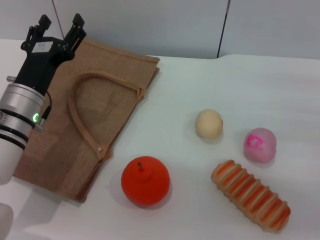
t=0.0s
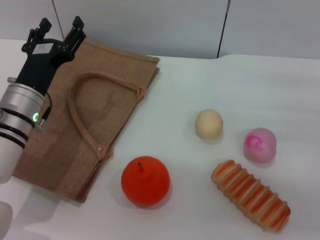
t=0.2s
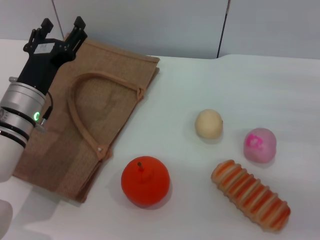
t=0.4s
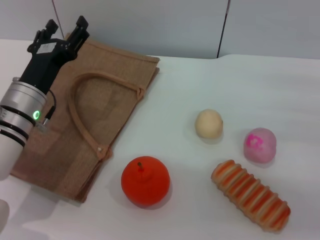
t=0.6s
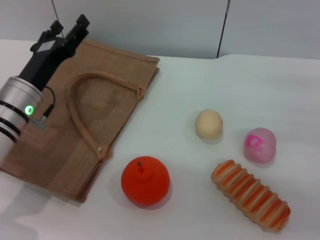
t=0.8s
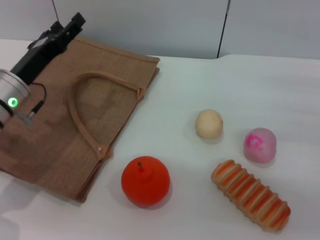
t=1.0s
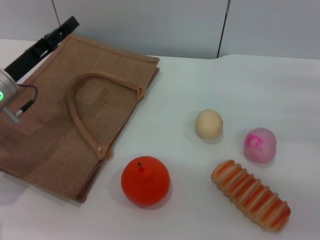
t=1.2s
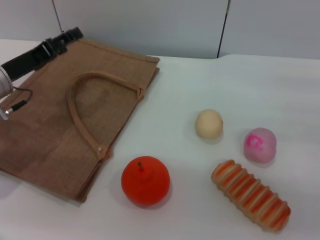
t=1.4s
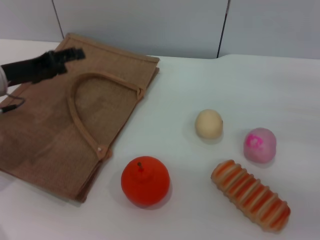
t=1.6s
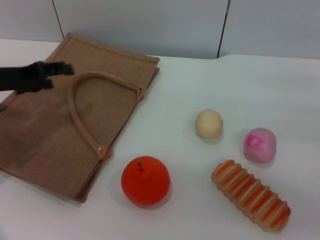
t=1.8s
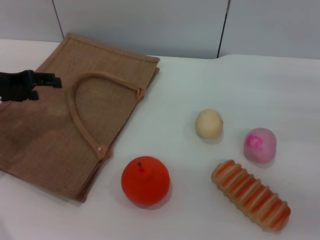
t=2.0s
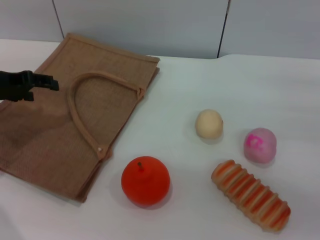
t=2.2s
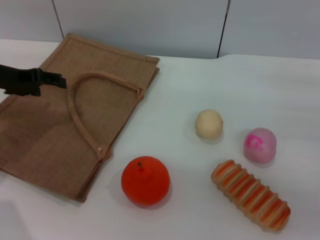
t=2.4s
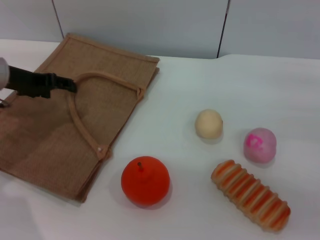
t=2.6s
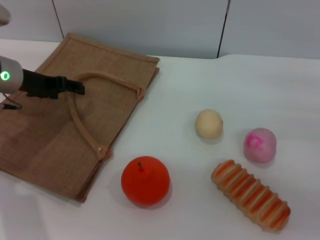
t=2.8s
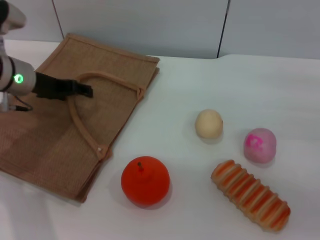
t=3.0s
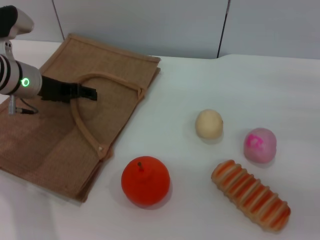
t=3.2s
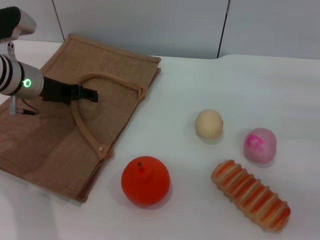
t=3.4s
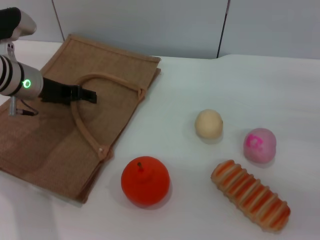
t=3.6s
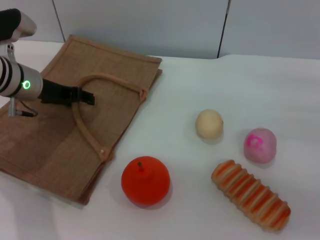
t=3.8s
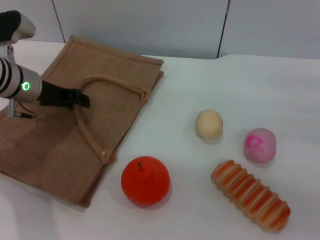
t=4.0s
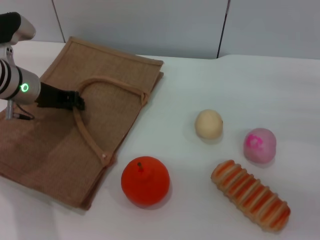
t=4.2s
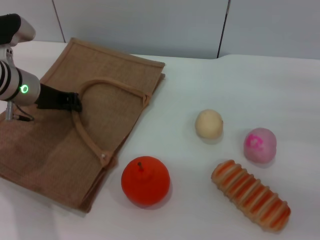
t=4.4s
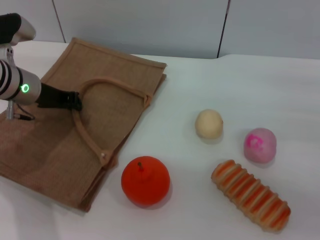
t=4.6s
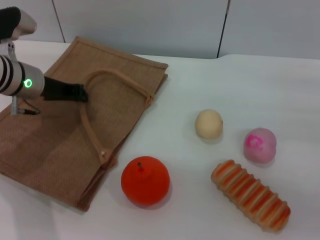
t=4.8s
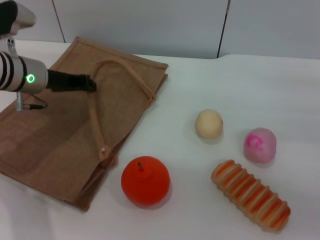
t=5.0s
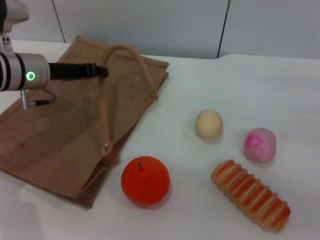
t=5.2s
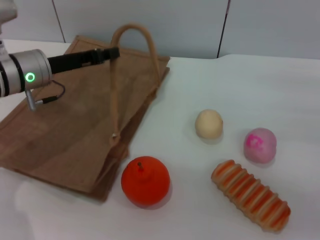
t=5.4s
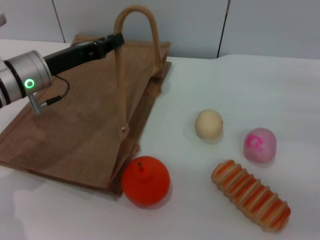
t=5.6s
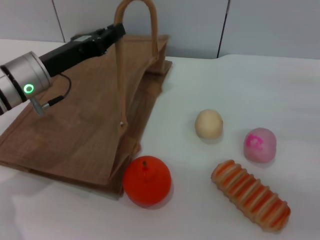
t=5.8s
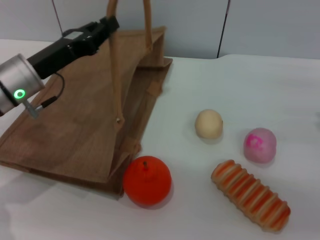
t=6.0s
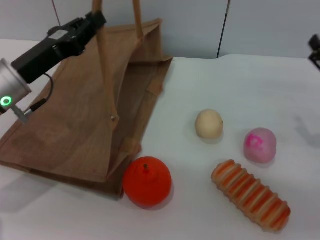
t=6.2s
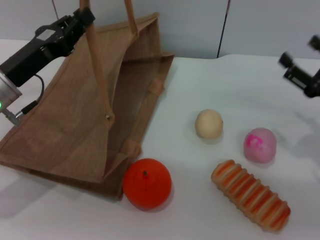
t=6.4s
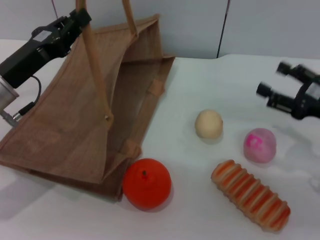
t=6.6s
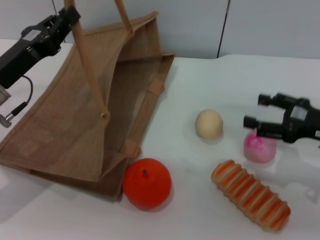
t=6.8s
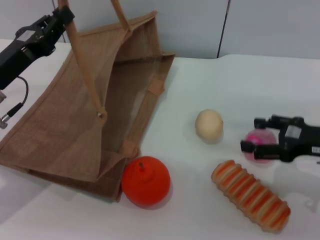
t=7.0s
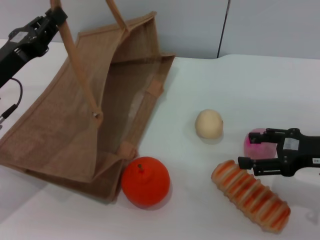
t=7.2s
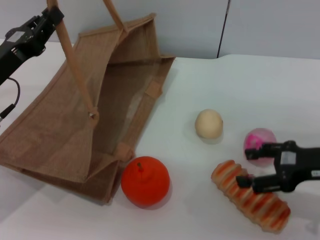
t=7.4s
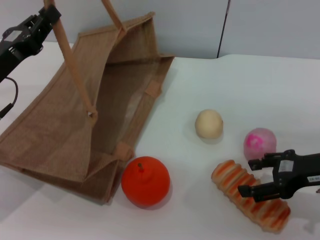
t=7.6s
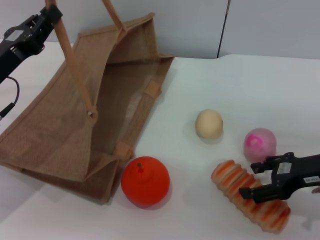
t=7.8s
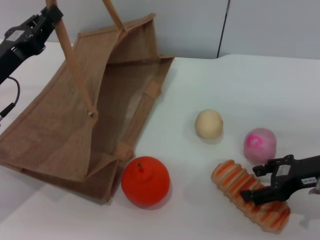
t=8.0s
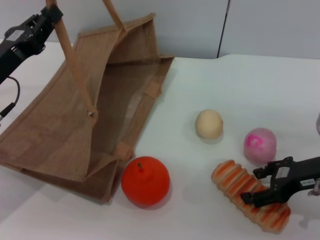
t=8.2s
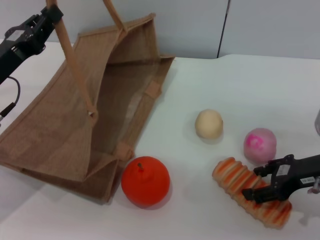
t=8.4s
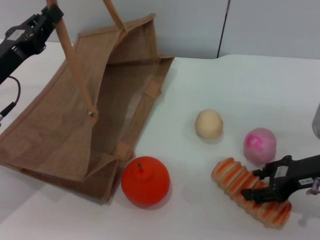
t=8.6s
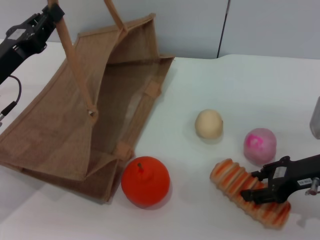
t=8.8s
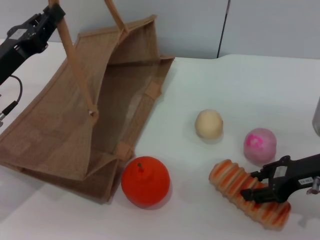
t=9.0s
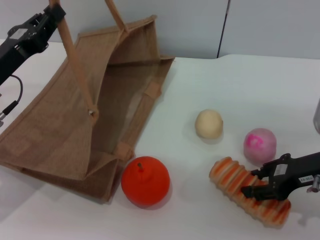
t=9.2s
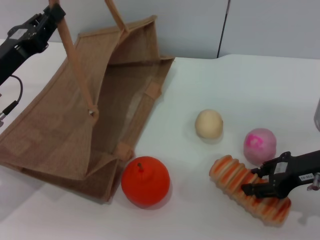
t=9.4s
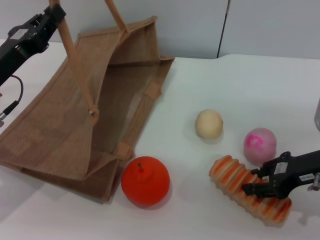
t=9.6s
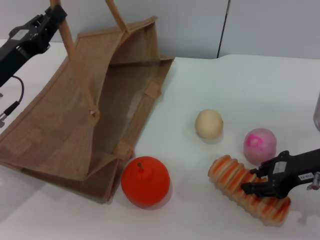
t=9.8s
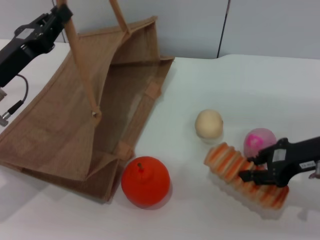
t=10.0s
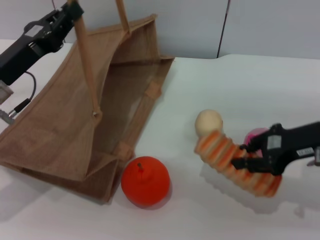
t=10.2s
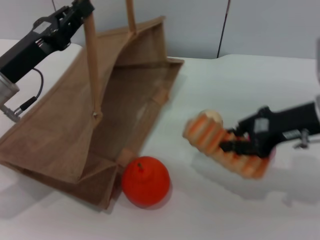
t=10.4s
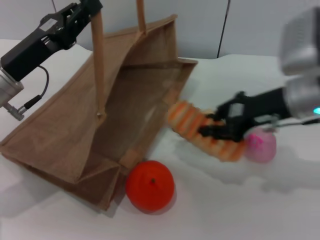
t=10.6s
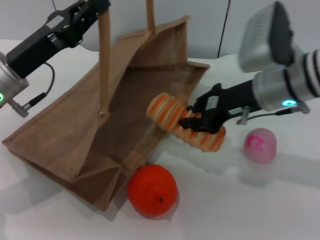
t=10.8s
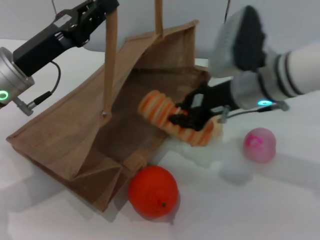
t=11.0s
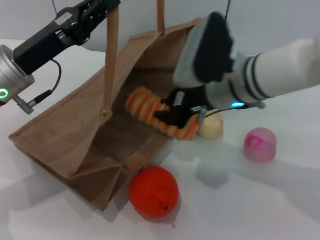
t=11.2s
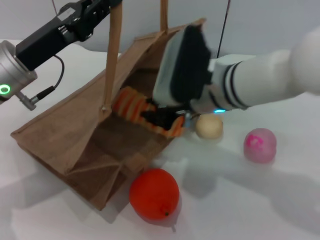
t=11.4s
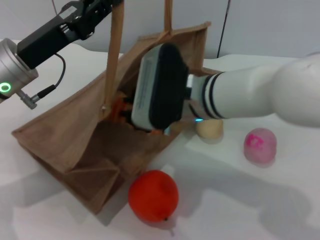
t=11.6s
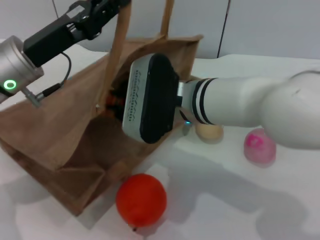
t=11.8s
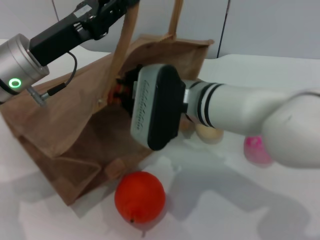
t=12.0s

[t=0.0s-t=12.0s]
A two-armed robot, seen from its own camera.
Task of the whole recording: pick up the bread and egg yolk pastry from the table and place it in the brown handbag.
Step, t=0.0s to t=6.2s: Lift the woven bag with the left gripper to open it.
Step, t=6.4s to t=10.0s: Pick up the bread with the right gripper.
t=0.0s to t=1.6s: The left gripper is displaced to the left by some 10 cm.
t=1.6s to t=3.0s: The left gripper changes place by about 5 cm.
t=3.0s to t=4.4s: The left gripper closes.
t=4.4s to t=6.0s: The left gripper is displaced backward by about 5 cm.
t=6.0s to t=7.6s: The left gripper changes place by approximately 5 cm. Meanwhile the right gripper heads to the left, covering about 5 cm.
t=7.6s to t=9.0s: The right gripper closes up.
t=9.0s to t=10.4s: The right gripper is displaced upward by roughly 5 cm, and closes.
t=10.4s to t=12.0s: The right gripper travels to the left by roughly 20 cm; the left gripper shifts by some 5 cm.

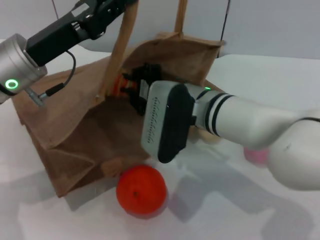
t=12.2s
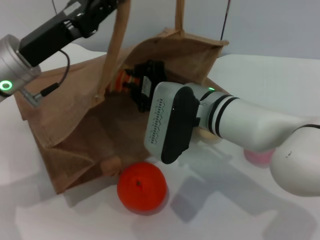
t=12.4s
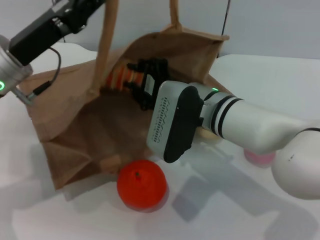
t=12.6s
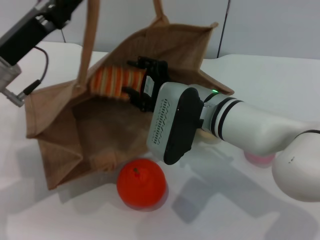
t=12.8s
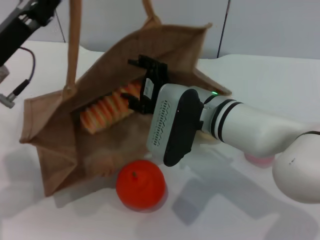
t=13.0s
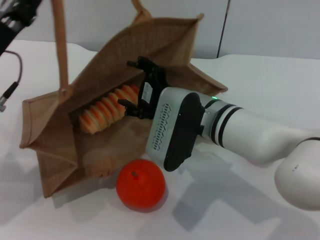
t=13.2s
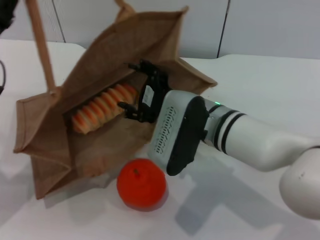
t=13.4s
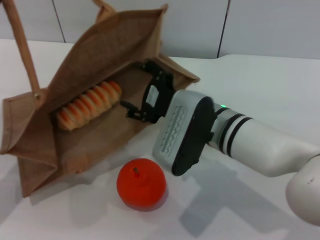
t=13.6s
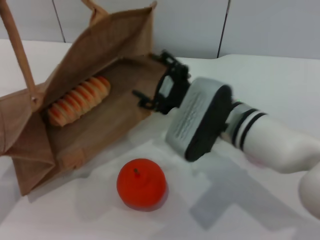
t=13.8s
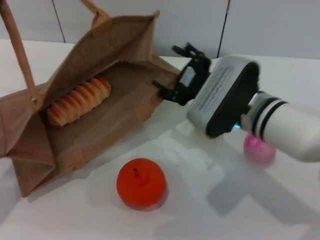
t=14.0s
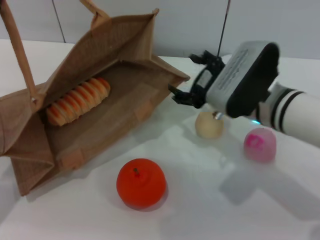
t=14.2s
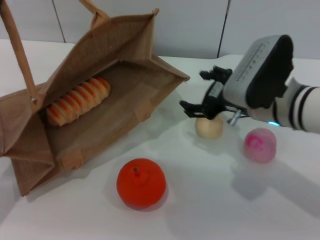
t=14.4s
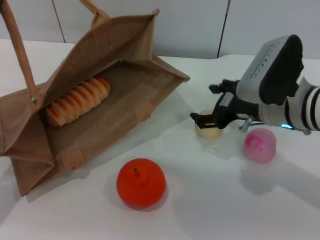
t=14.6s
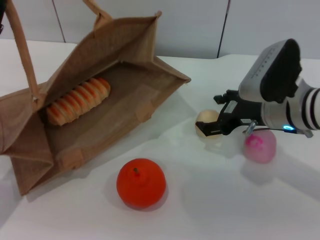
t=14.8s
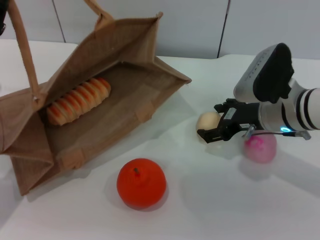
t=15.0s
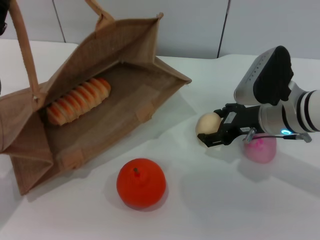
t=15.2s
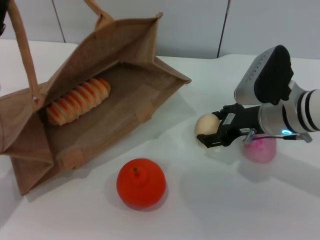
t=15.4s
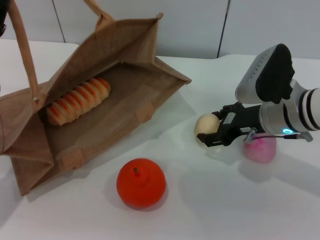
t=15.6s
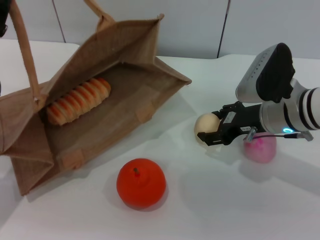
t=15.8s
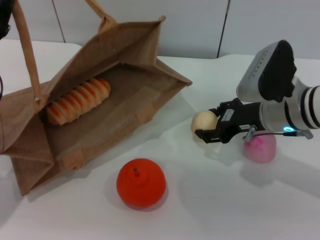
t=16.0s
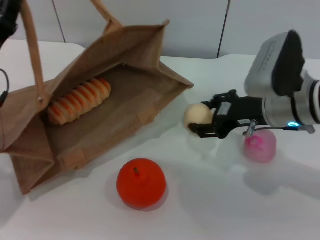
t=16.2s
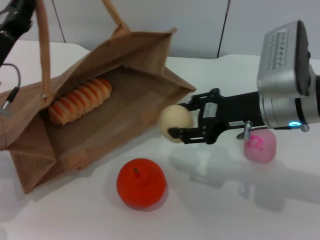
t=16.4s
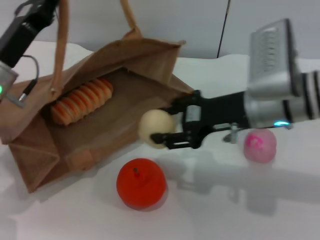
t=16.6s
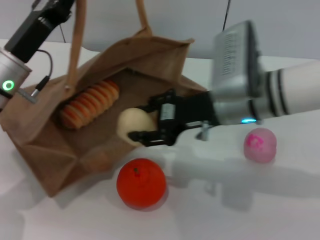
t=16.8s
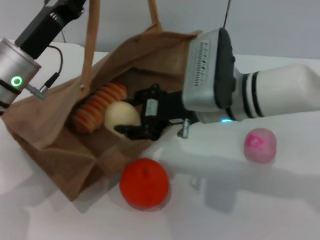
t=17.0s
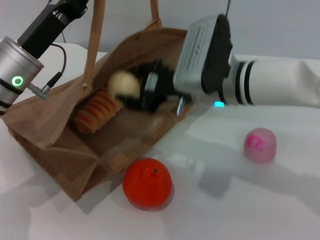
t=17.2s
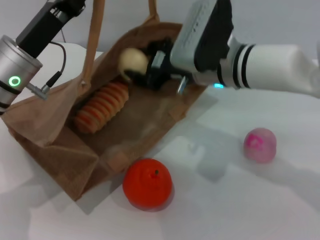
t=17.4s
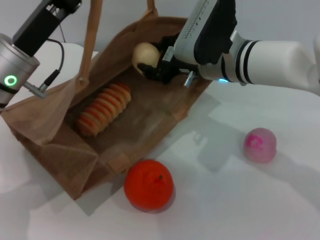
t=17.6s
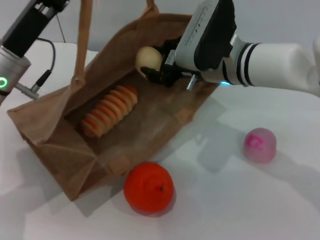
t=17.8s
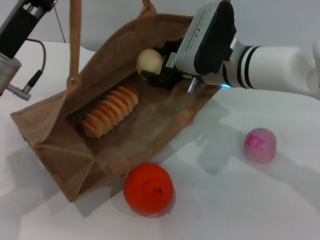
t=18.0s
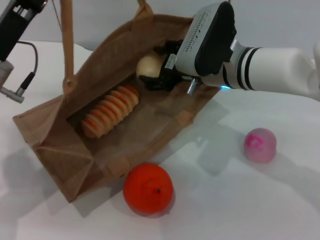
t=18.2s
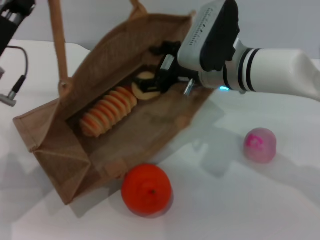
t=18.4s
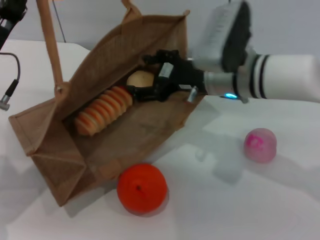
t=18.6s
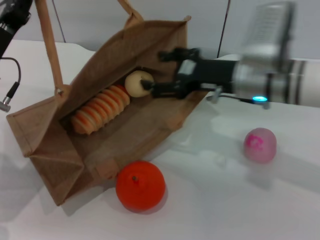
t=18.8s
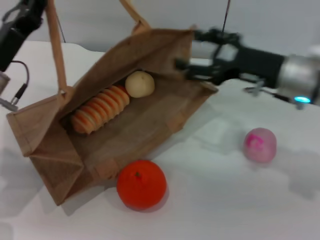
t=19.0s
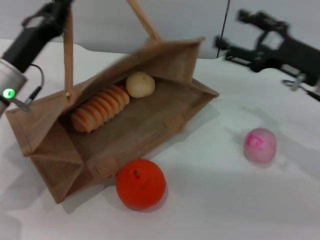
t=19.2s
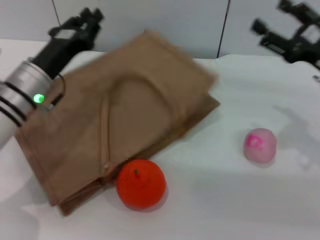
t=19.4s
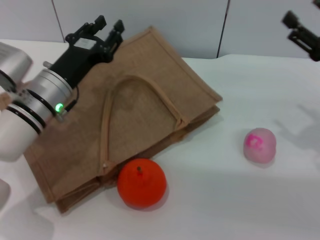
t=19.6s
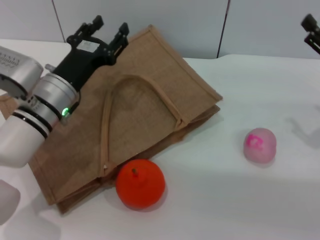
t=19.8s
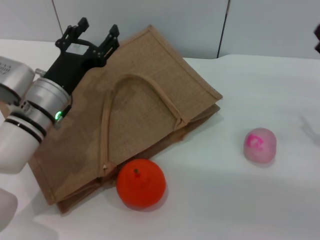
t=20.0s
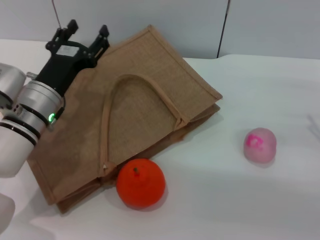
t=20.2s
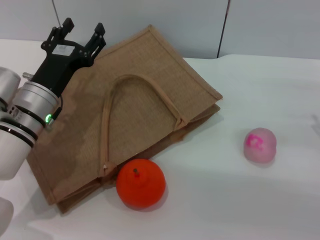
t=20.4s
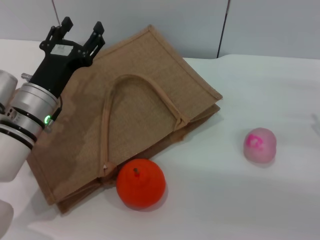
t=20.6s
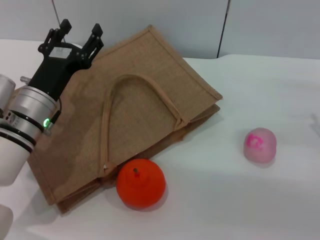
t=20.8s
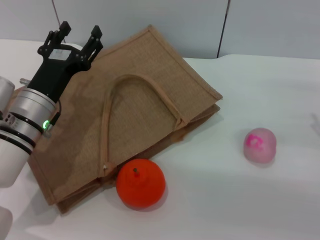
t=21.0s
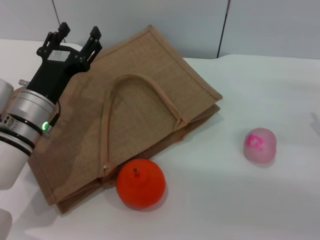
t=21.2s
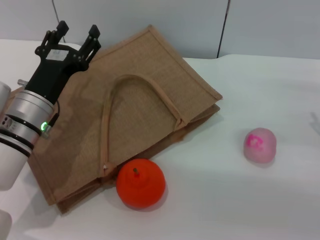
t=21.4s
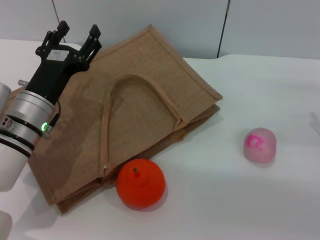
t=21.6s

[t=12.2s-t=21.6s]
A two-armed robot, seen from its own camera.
Task of the whole recording: pick up the bread and egg yolk pastry from the table and place it in the brown handbag.
Step, t=13.4s to t=16.0s: Pick up the egg yolk pastry with the right gripper.
Step, t=16.4s to t=18.6s: Place the egg yolk pastry into the woven bag with the right gripper.
Step, t=18.8s to t=19.6s: Lower the woven bag with the left gripper to close it.
t=12.2s to t=13.8s: The right gripper opens its fingers, while the left gripper heads to the left and downward, covering some 10 cm.
t=13.8s to t=15.4s: The right gripper goes roughly 10 cm to the right.
t=15.4s to t=17.0s: The left gripper moves to the right, approximately 5 cm; the right gripper is displaced to the left by roughly 10 cm, and closes.
t=18.4s to t=20.0s: The right gripper goes about 25 cm to the right. Meanwhile the left gripper travels downward and to the right by roughly 10 cm, and opens up.
t=20.0s to t=21.6s: The grippers make only small movements.
